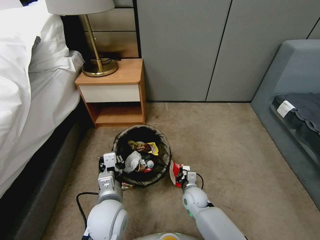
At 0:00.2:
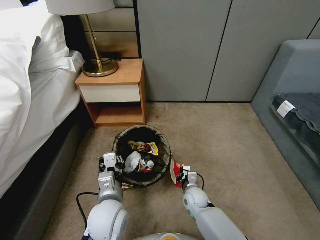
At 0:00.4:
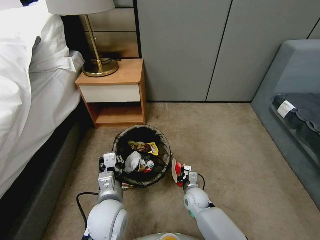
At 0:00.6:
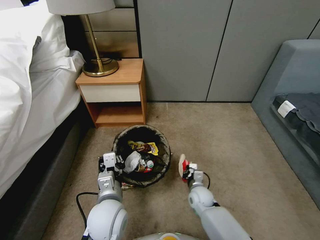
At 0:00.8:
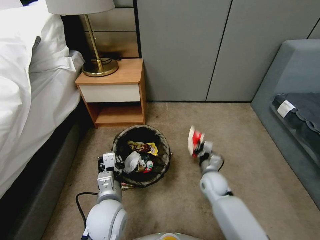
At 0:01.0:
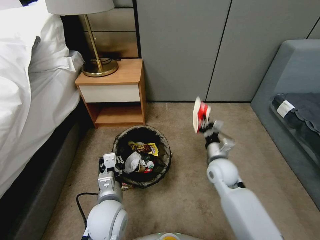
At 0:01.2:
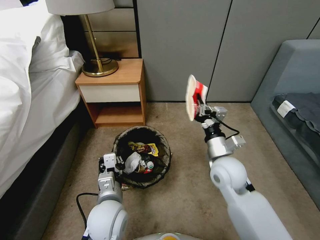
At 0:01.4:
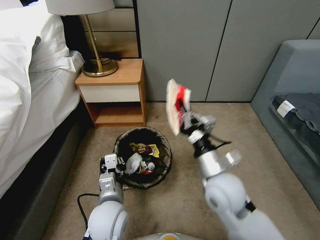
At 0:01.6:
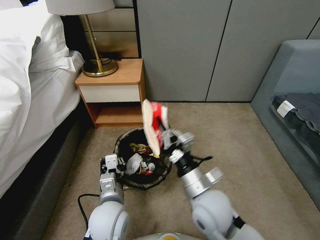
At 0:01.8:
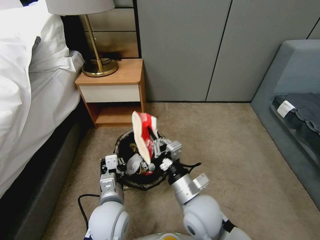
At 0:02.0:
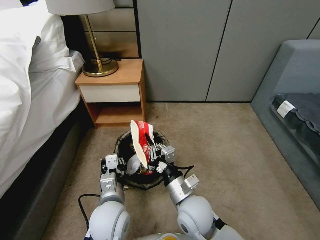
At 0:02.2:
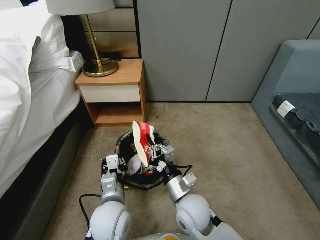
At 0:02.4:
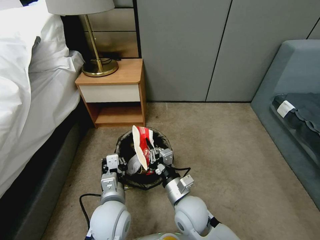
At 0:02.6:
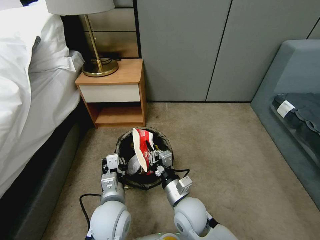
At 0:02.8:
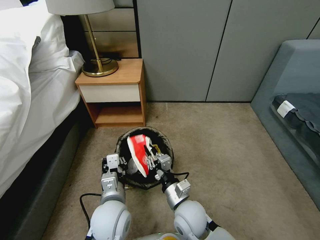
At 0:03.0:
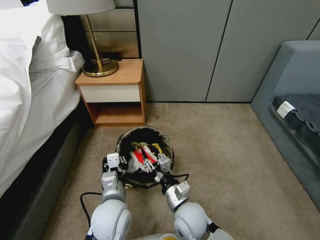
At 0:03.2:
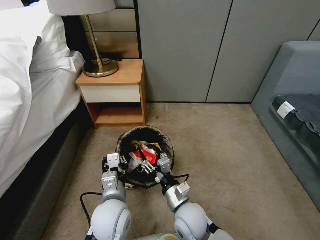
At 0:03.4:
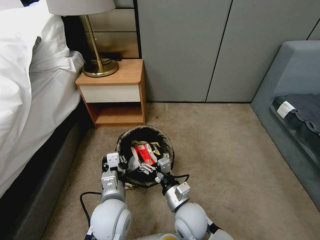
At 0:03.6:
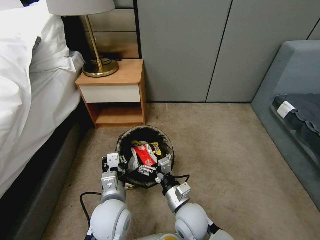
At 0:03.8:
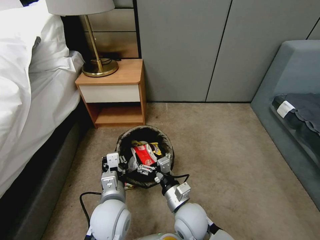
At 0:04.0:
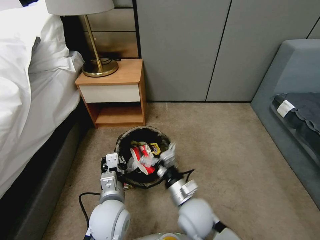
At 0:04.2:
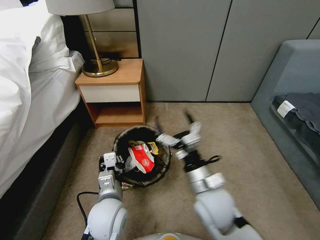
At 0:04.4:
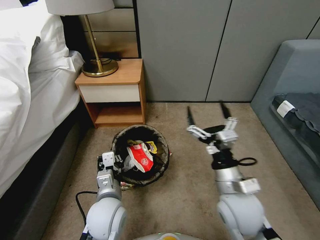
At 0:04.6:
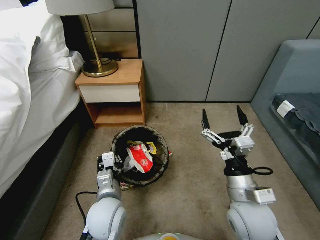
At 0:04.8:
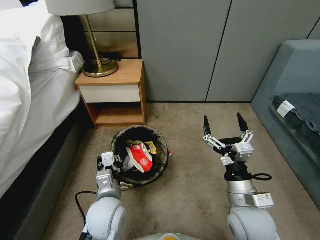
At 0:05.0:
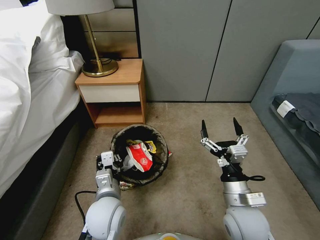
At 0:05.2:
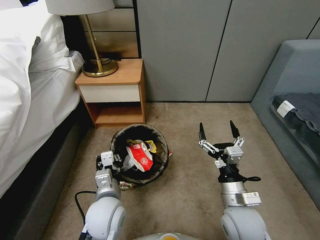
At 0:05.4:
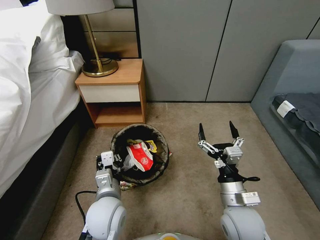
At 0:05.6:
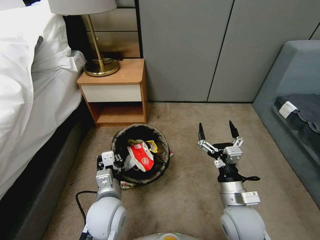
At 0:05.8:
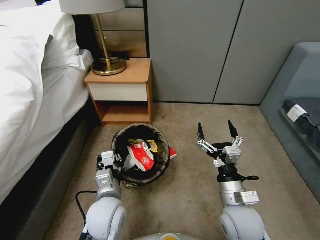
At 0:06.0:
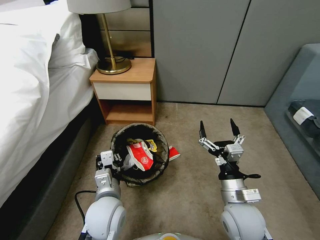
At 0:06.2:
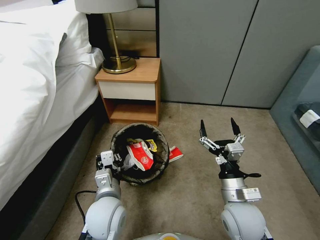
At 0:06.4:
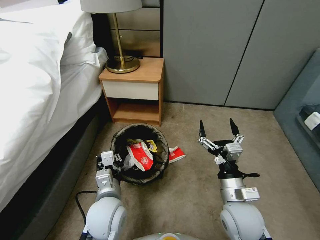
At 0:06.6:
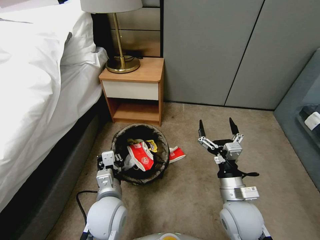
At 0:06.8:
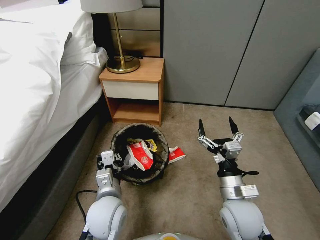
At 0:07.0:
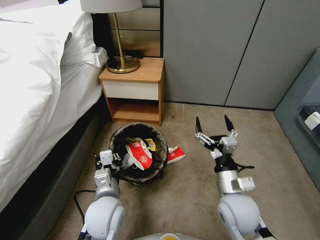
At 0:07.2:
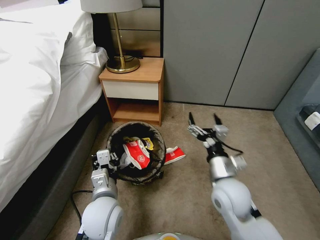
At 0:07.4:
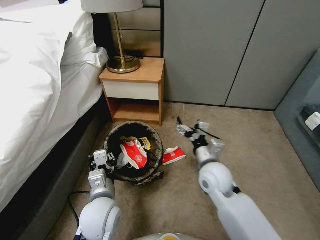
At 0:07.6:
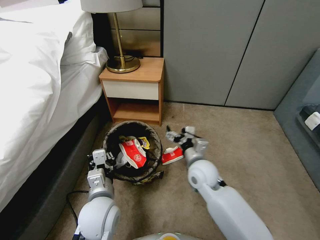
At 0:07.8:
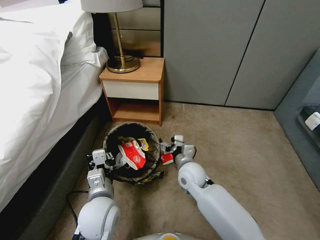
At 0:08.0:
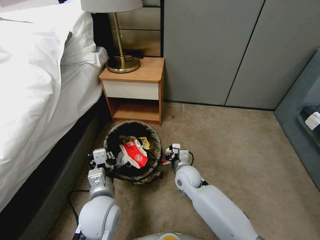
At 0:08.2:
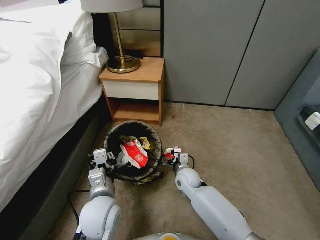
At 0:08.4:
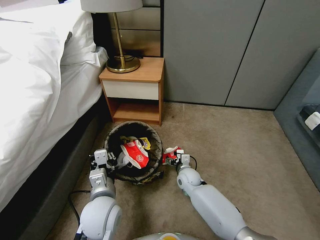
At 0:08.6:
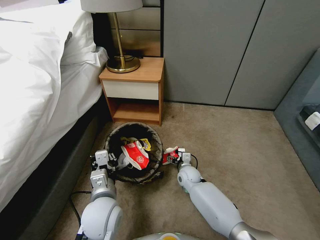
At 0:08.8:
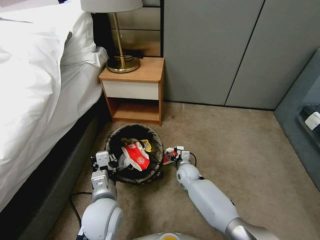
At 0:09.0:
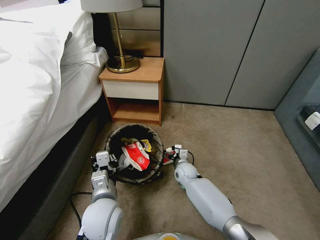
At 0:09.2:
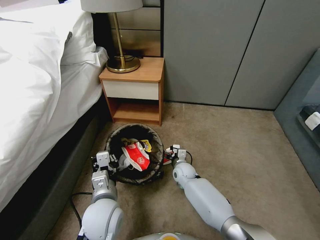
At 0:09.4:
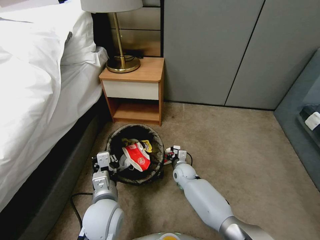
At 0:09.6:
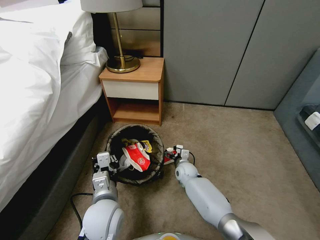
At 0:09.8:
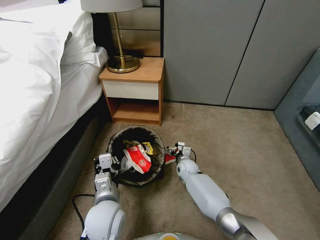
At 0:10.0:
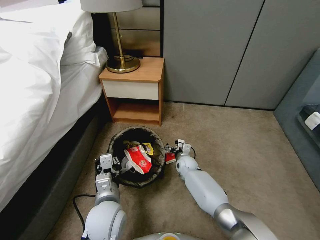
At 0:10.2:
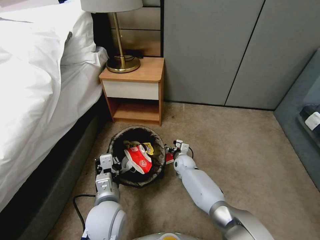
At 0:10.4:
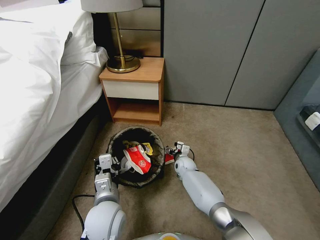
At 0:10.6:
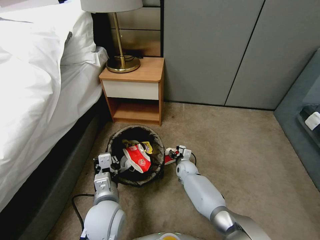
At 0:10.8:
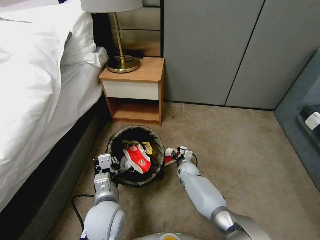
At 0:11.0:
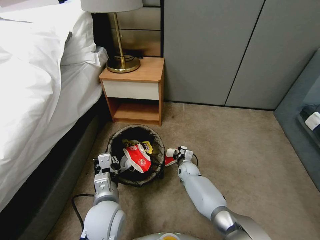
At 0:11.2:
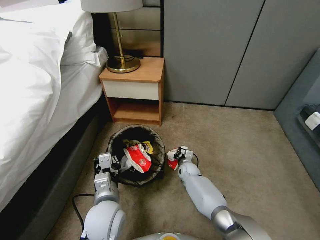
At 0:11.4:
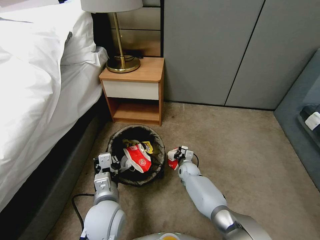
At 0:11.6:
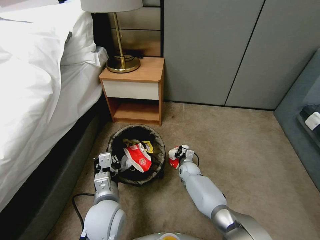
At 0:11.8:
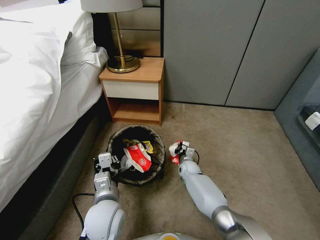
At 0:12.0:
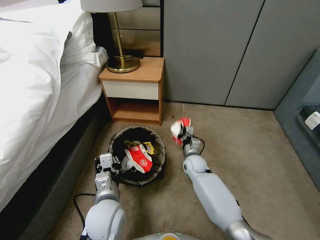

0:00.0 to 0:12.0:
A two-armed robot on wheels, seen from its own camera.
Task of the whole recording: Pick up the trash bin, then pick up the garbage from the floor and place it into the trash bin.
0:00.0 to 0:01.6: The right gripper heads upward, covering some 25 cm.
0:01.6 to 0:03.0: The right gripper shifts about 10 cm downward, and opens up.
0:03.0 to 0:04.4: The right gripper shifts about 15 cm upward and to the right, and opens up.
0:04.4 to 0:06.0: The right gripper travels downward by approximately 5 cm.
0:06.0 to 0:07.6: The right gripper travels forward and to the left by some 15 cm.
0:07.6 to 0:09.0: The right gripper travels downward and forward by about 20 cm.
0:09.0 to 0:10.4: There are only small adjustments of the grippers.
0:10.4 to 0:12.0: The right gripper moves about 5 cm, and closes.

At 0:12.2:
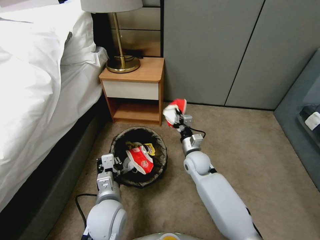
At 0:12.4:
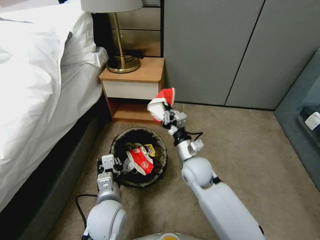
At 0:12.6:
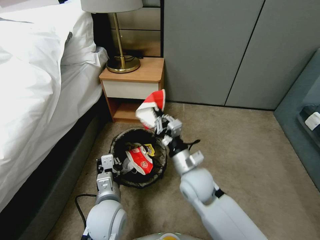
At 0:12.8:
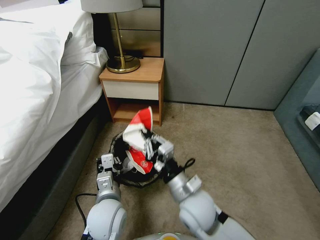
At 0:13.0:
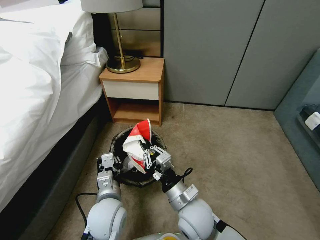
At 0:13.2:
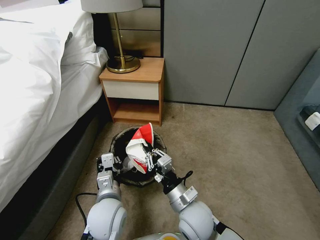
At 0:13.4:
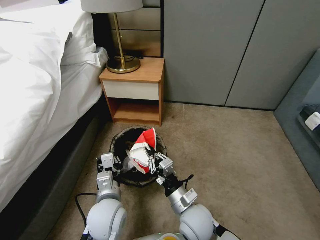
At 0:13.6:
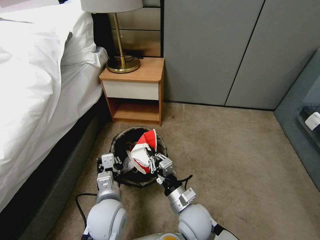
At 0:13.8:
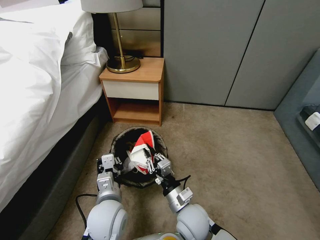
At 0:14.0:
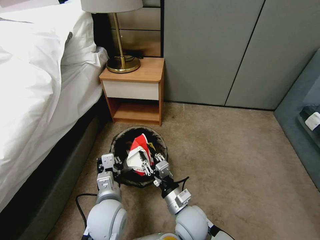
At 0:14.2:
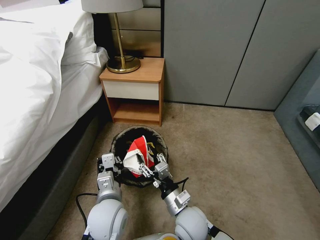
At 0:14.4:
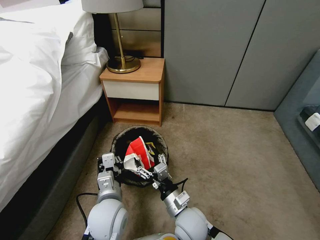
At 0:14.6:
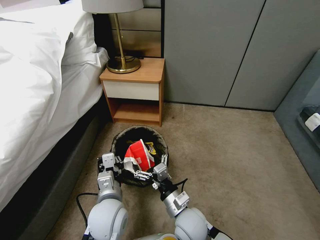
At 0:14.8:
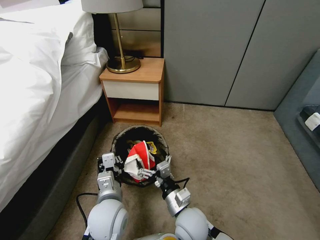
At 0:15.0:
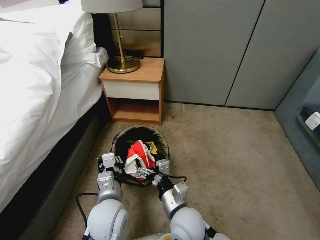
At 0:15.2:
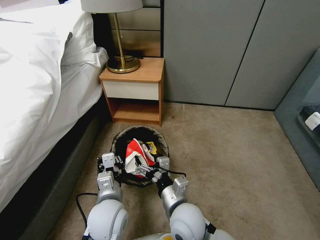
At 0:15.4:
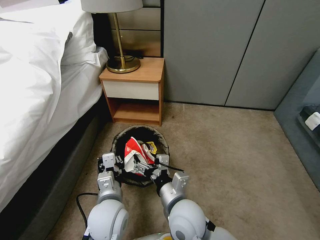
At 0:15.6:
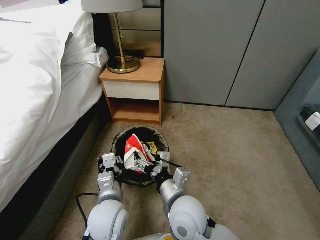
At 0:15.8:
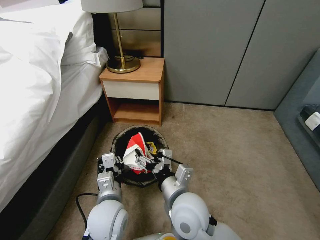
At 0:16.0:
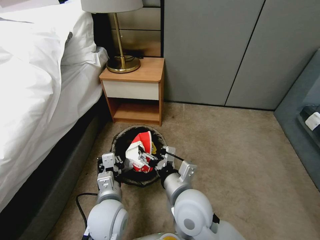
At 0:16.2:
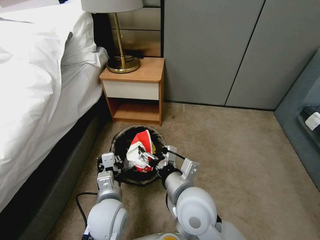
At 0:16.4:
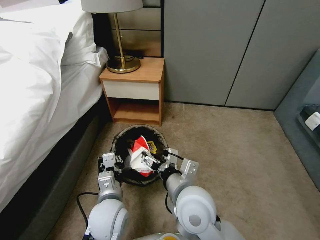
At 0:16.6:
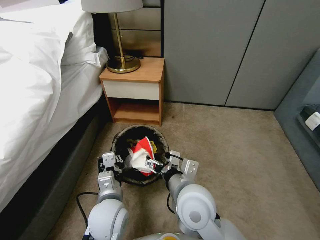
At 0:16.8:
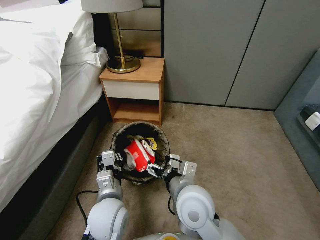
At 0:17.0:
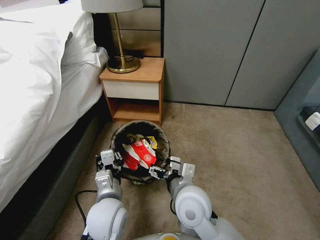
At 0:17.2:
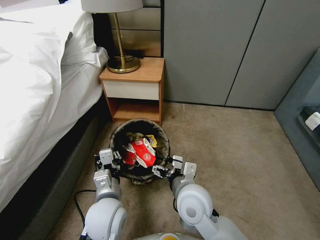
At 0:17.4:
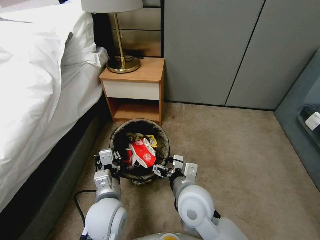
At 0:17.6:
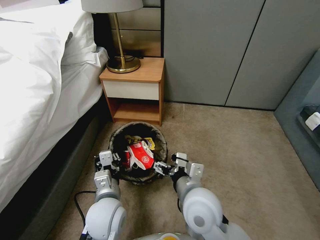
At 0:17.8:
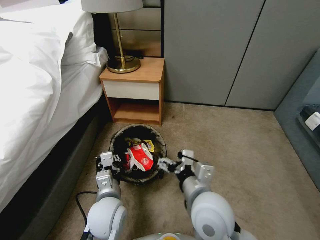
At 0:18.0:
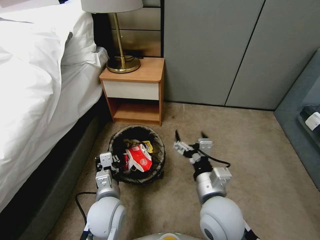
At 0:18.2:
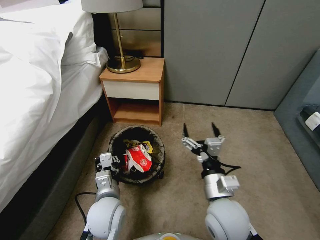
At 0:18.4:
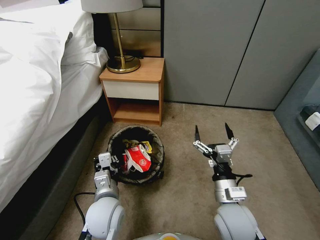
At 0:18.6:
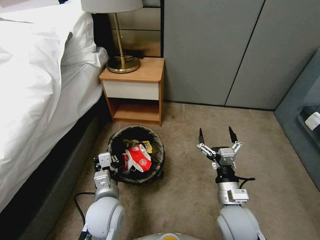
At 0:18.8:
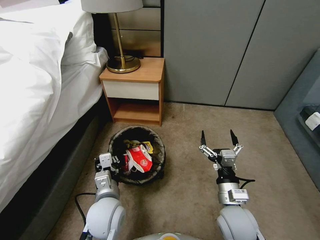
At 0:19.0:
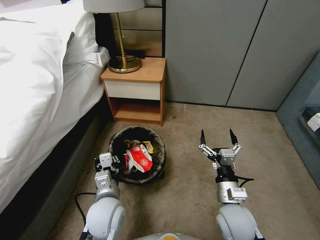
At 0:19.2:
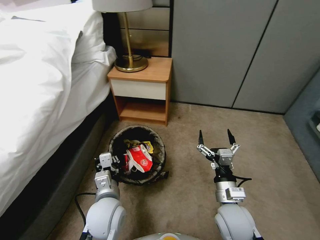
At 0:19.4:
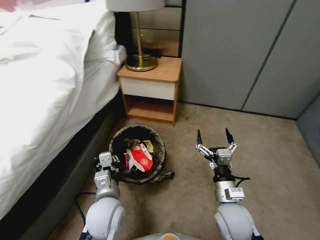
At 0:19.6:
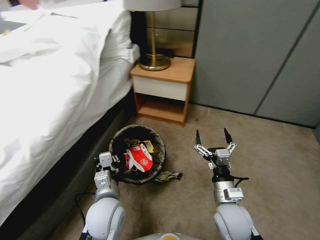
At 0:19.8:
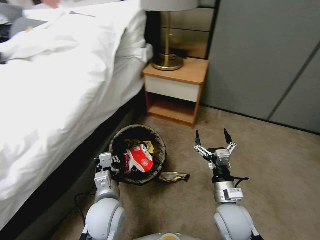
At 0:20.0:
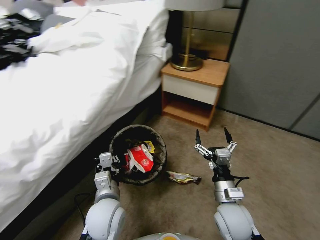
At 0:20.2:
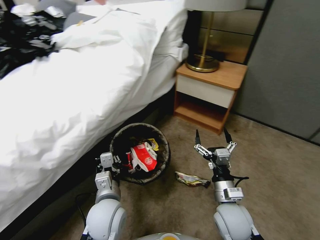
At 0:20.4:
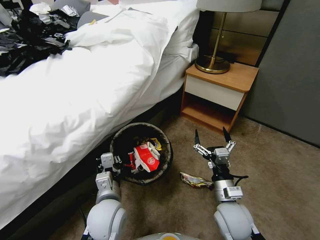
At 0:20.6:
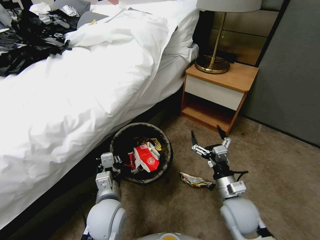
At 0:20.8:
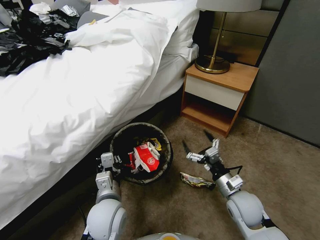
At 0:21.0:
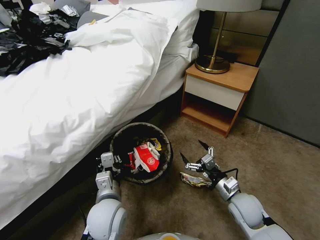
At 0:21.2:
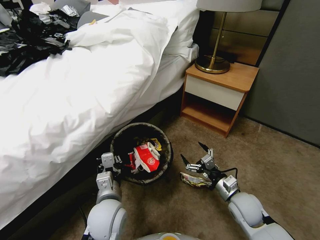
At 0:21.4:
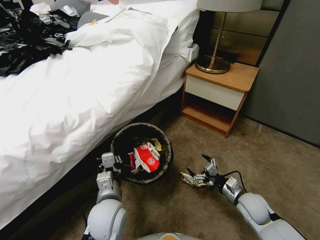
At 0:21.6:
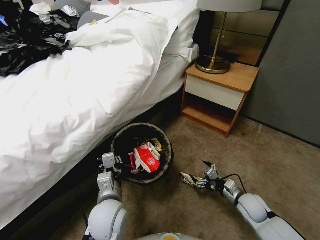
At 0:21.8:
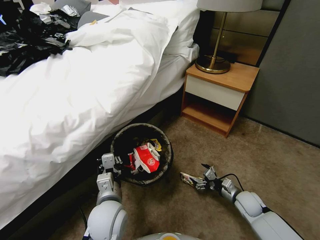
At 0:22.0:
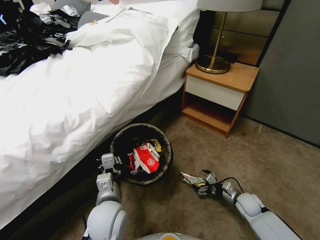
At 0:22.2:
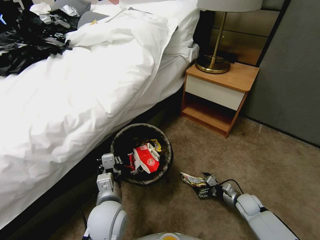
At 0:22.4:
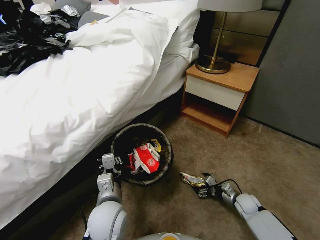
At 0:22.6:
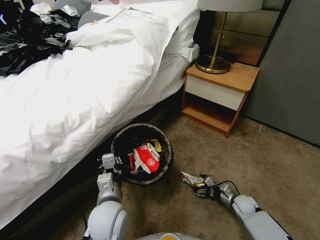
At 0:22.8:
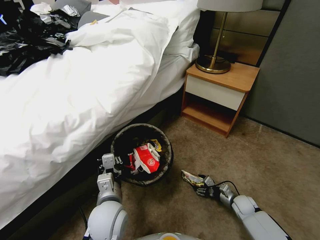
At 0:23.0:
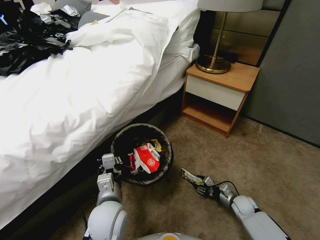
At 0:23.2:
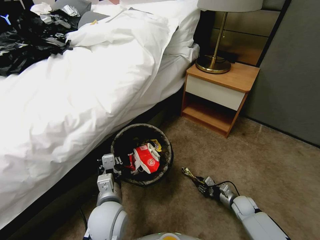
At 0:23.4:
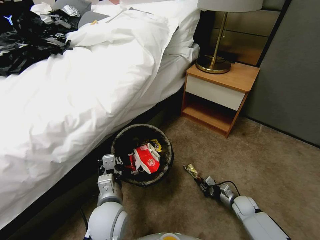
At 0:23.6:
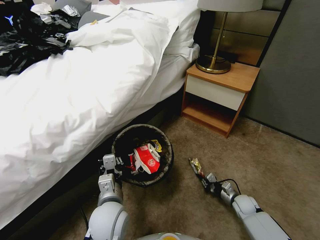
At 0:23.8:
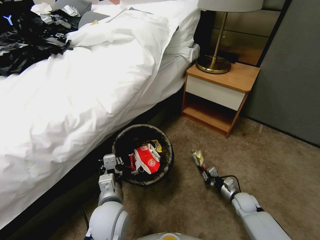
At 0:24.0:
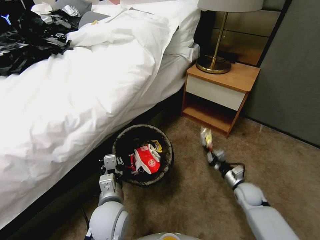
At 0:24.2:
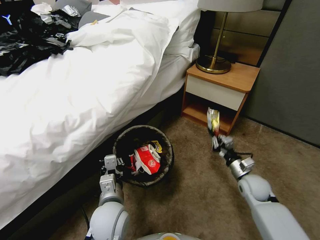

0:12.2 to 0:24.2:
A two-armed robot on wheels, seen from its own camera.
Task of the whole recording: Pick up the trash bin, then pick up the garbage from the floor and place it into the trash bin.
0:12.2 to 0:13.8: The right gripper is displaced backward by roughly 20 cm.
0:13.8 to 0:15.2: The right gripper goes about 5 cm upward, and opens up.
0:15.2 to 0:16.6: The right gripper shifts approximately 10 cm upward.
0:16.6 to 0:18.2: The right gripper shifts some 5 cm to the right.
0:18.2 to 0:19.8: The right gripper is displaced downward by roughly 10 cm.
0:19.8 to 0:21.2: The right gripper travels to the right and downward by some 10 cm.
0:21.2 to 0:22.6: The right gripper heads downward and to the right, covering roughly 20 cm.
0:22.6 to 0:24.2: The right gripper is displaced upward by about 20 cm, and closes.
